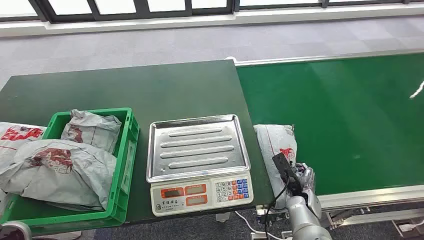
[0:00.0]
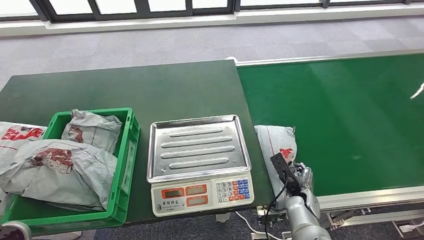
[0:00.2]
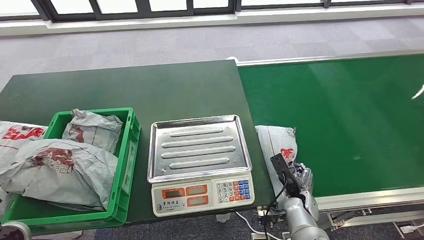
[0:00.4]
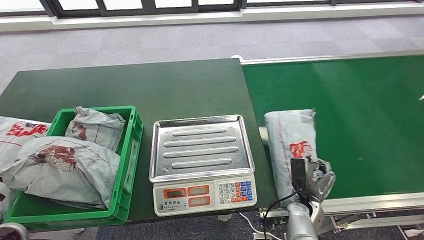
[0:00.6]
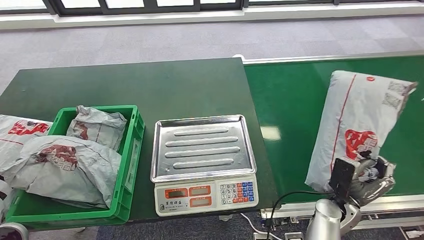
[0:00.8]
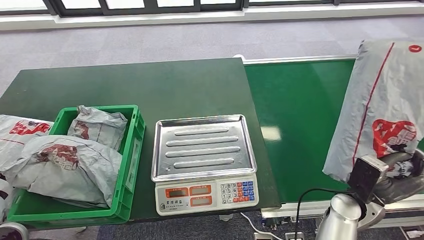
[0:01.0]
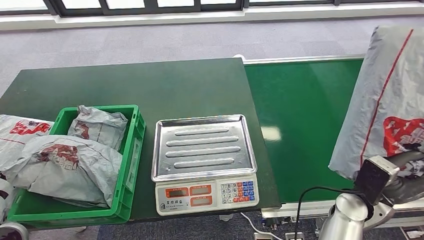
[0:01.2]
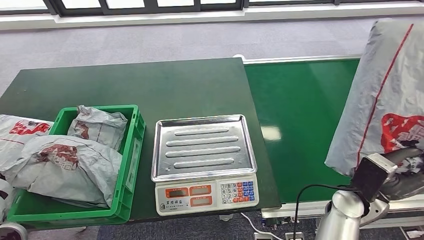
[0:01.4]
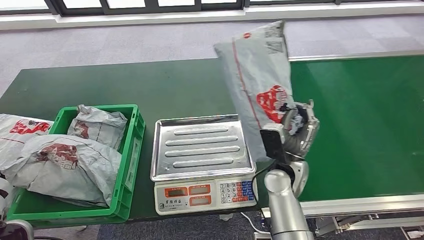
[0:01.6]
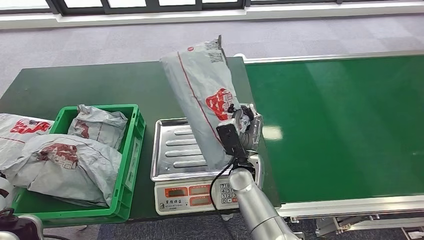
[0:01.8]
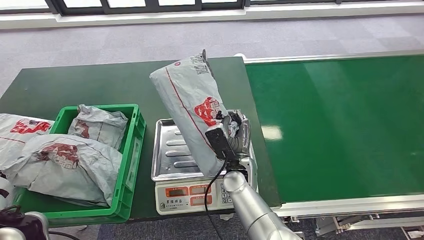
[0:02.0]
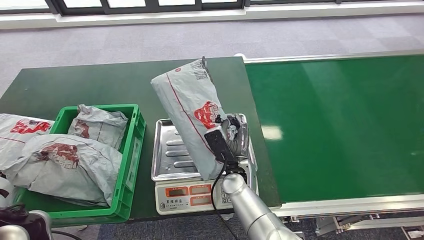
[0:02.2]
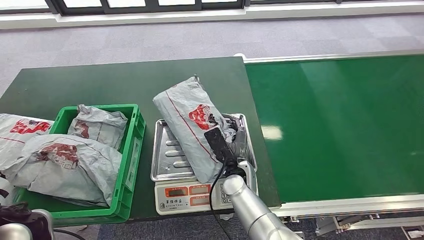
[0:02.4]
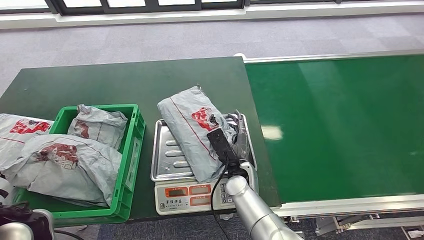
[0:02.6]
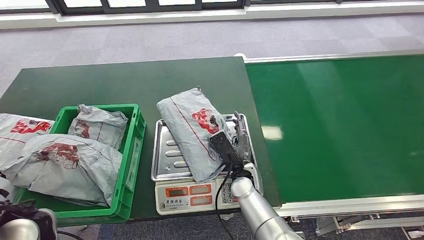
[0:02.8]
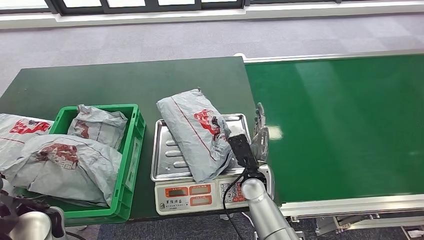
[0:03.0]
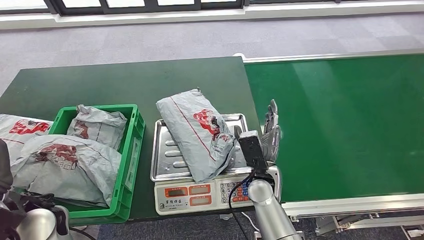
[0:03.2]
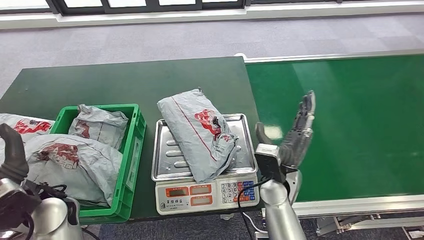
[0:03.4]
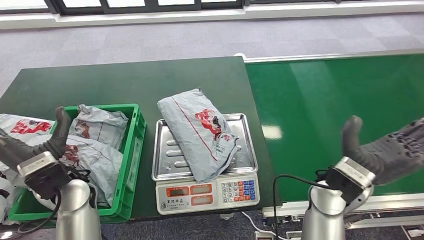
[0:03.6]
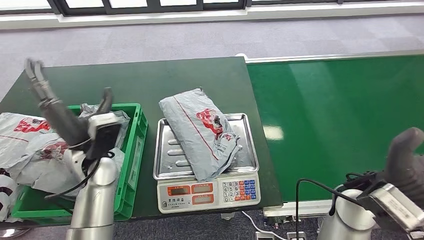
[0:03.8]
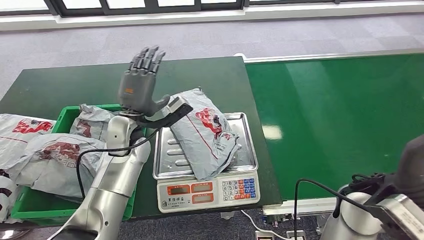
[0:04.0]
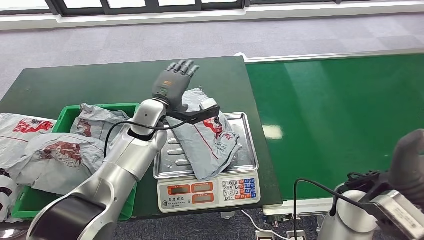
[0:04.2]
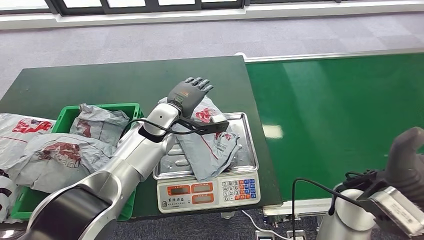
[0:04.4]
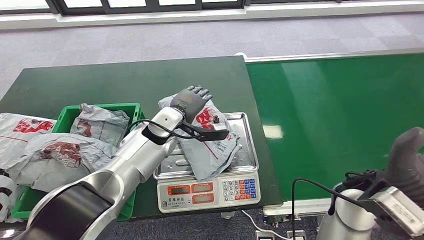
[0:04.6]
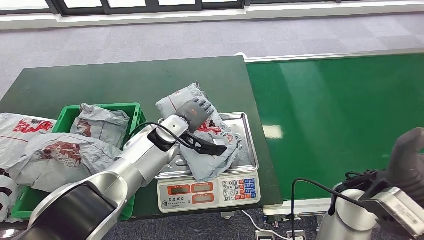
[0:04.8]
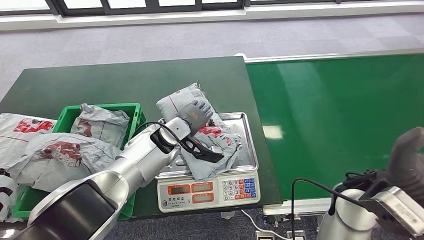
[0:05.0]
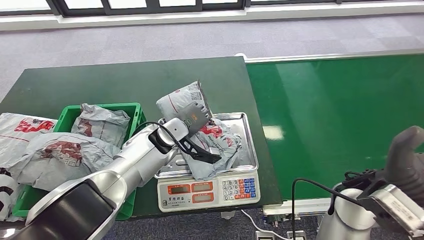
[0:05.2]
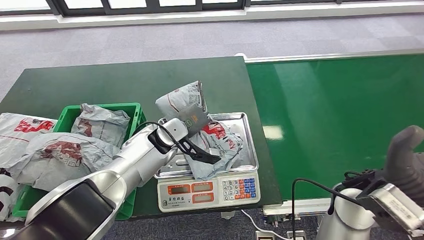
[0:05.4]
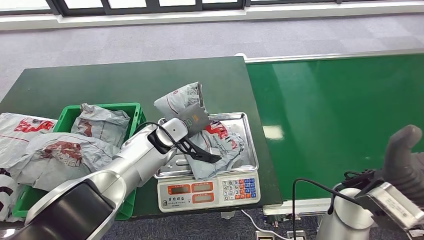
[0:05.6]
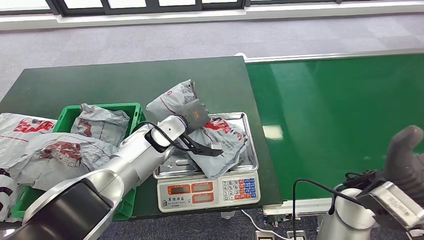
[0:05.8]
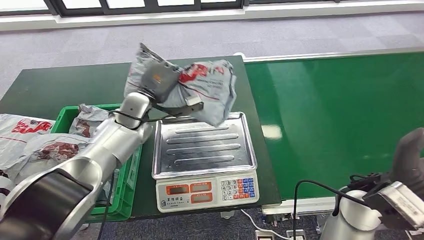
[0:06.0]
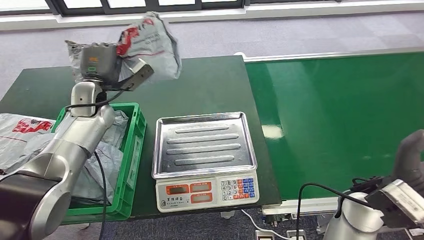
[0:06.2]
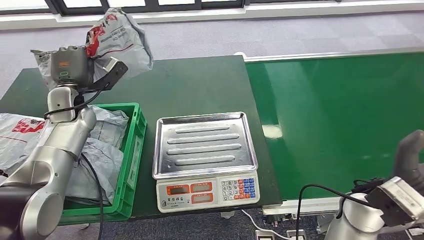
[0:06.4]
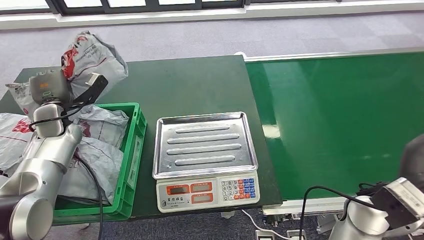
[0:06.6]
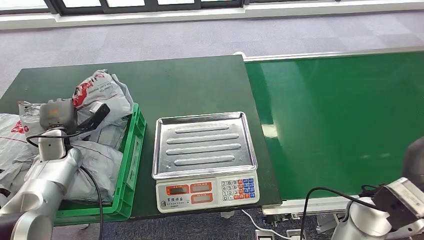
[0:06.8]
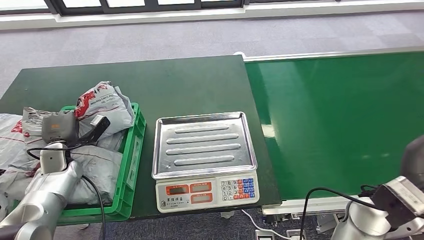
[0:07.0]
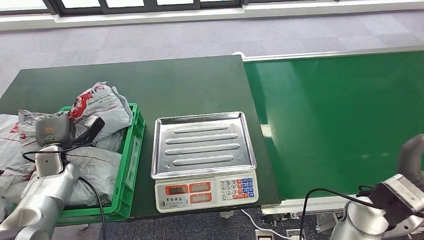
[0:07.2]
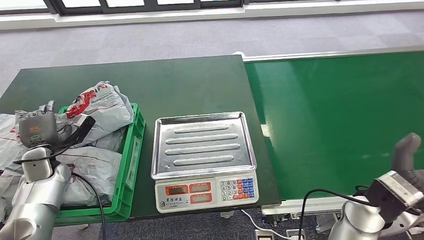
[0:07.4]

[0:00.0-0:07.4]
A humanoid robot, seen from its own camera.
Task of the whole recording: Weigh the package on the weighing device and place it in the left basket.
Step, 0:00.0 to 0:01.0: Pick up the package from the conveyor belt.
Step, 0:01.2 to 0:03.0: Place the package onto the inbound machine.
Step, 0:03.2 to 0:05.8: Pick up the package from the inbound machine.
Step, 0:06.0 to 0:07.4: Place the package into the parcel locker.
